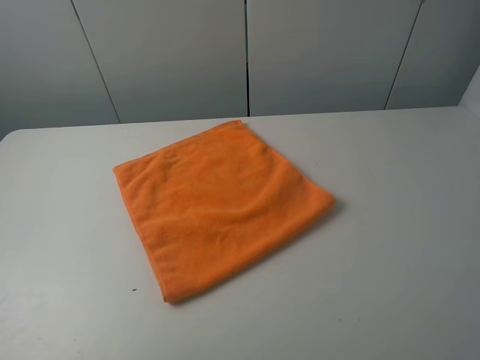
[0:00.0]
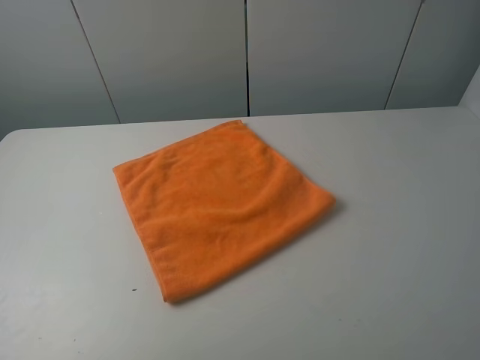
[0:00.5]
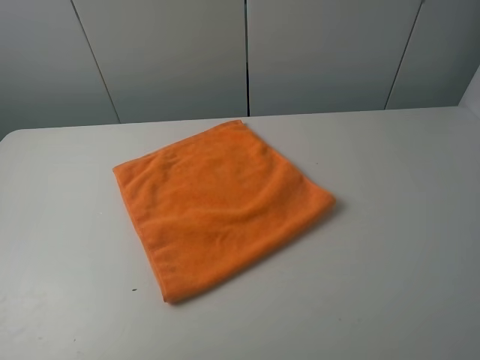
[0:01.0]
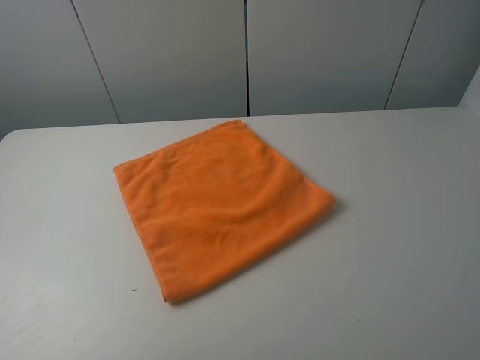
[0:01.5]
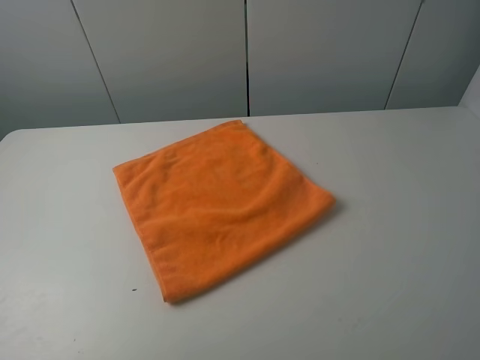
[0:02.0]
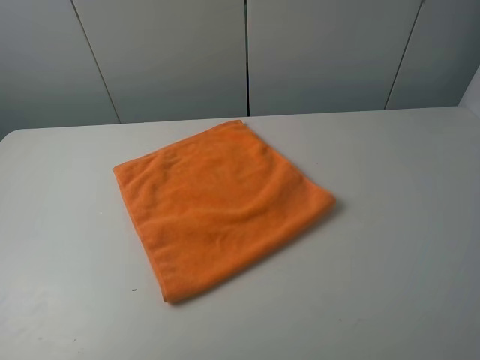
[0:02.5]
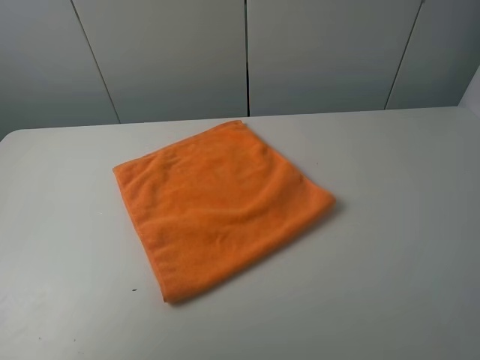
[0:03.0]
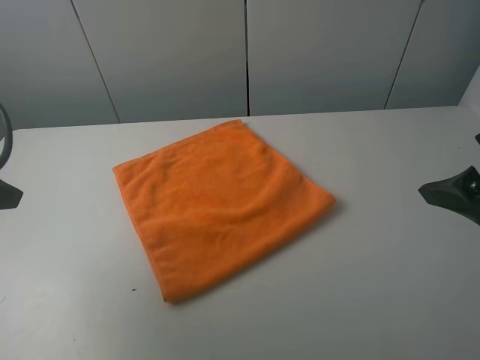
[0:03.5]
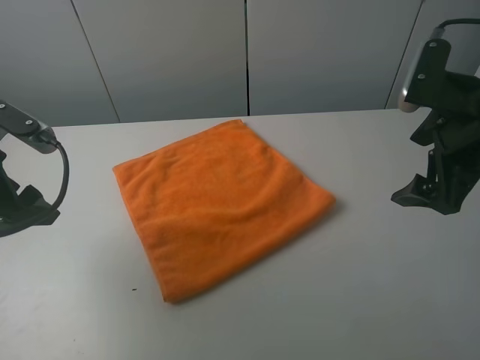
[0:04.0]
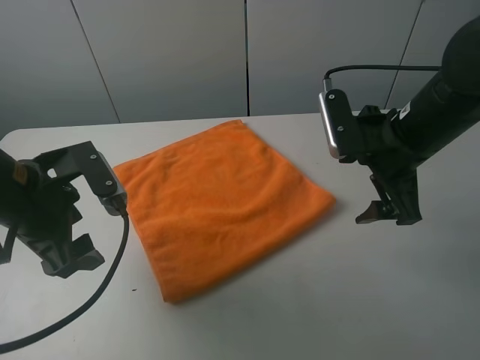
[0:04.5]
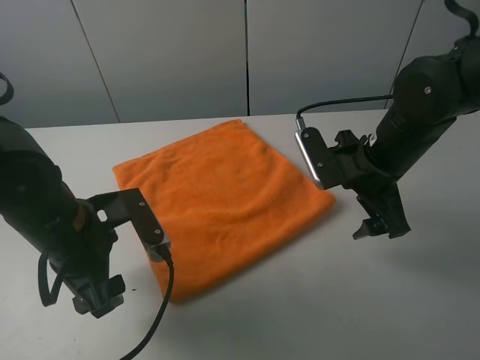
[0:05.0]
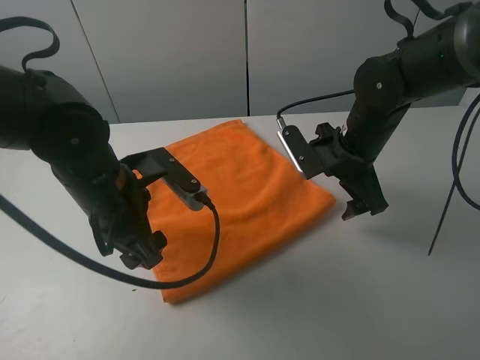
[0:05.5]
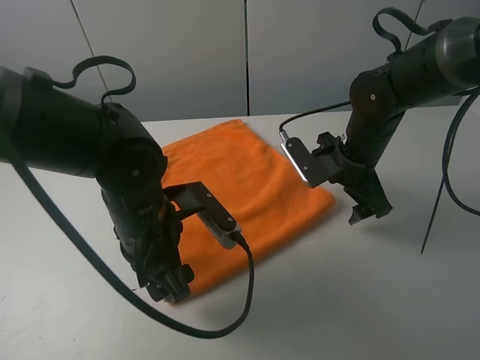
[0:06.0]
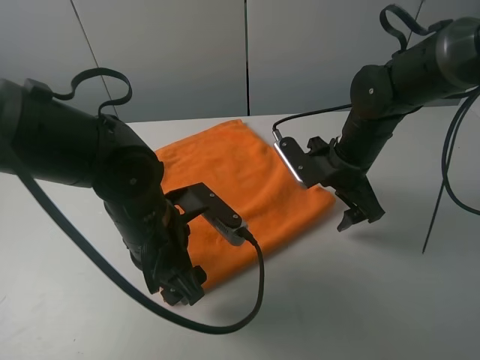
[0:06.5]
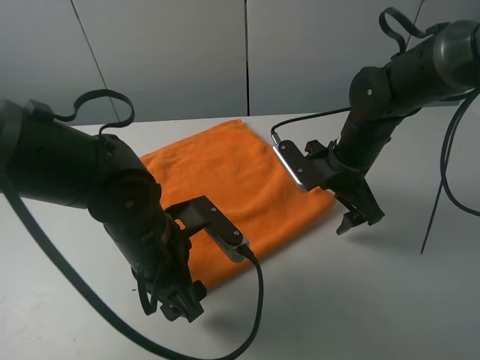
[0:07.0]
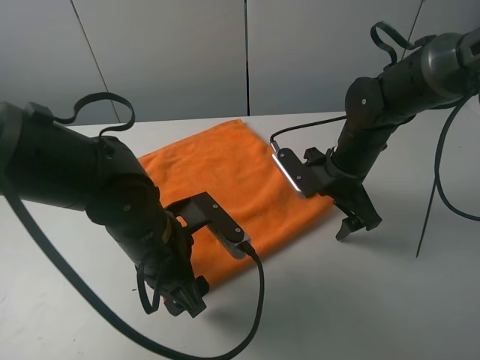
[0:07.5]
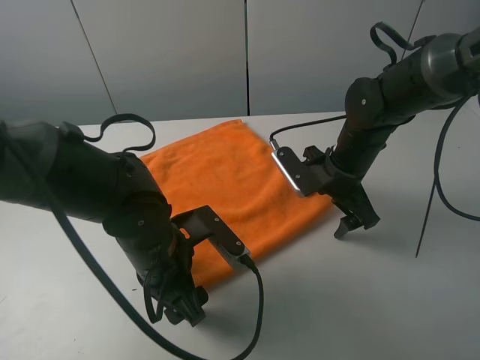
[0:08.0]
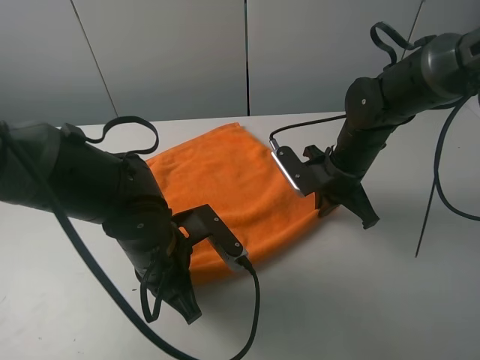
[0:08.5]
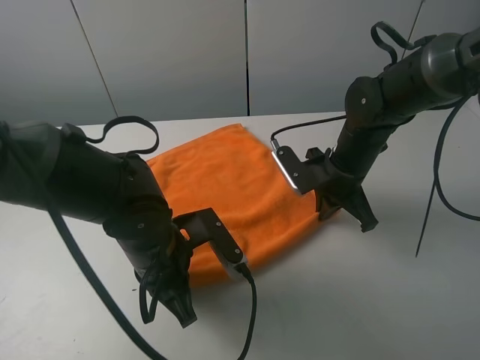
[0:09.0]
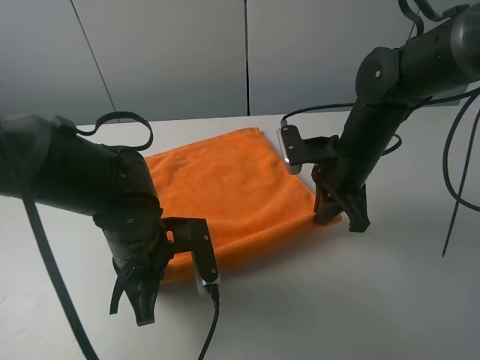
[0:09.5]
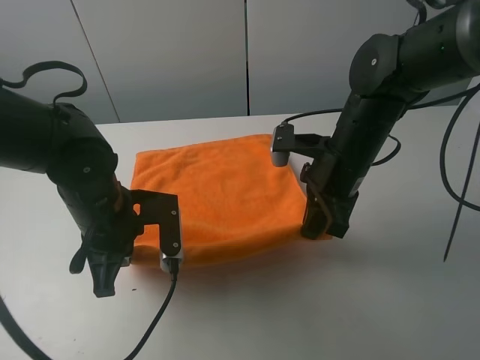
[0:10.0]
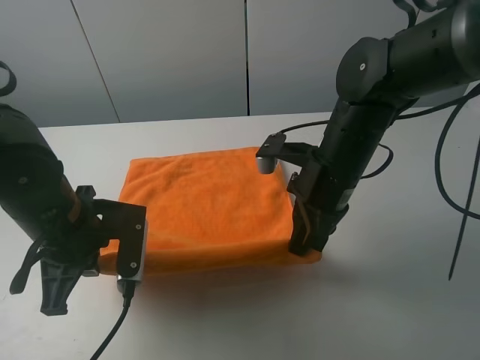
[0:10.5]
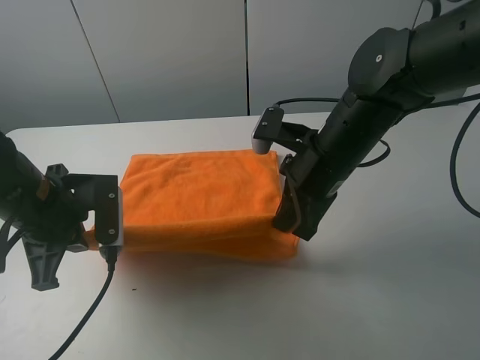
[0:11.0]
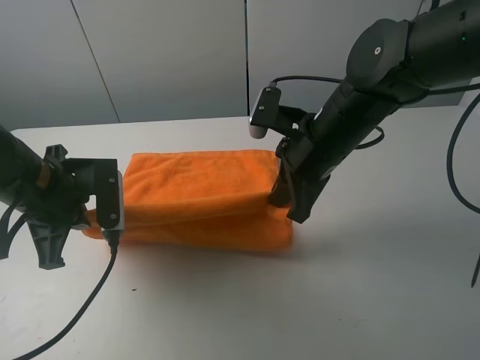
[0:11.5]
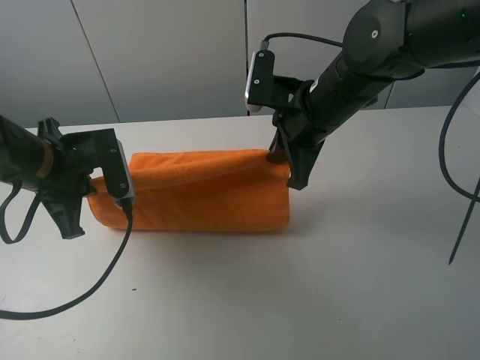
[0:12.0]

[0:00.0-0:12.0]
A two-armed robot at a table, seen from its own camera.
Task of the whole recording: fold the towels on the table.
Step, 0:00.0 to 0:08.5: Grasp the orange towel with the left gripper.
0:00.0 to 0:02.0: The two grippers keep their place.
0:02.0 to 0:04.0: The two grippers go approximately 25 cm forward.
0:04.0 to 0:06.0: The right gripper shifts about 15 cm downward, forward and to the left. Meanwhile the left gripper shifts approximately 20 cm to the right and downward.
0:08.0 to 0:10.0: The right gripper shifts about 5 cm upward, and closes up; the left gripper moves to the left, roughly 5 cm, and closes its fingers.
0:10.0 to 0:12.0: The left gripper moves to the left and upward, some 10 cm. The right gripper ends up roughly 5 cm from where it was.

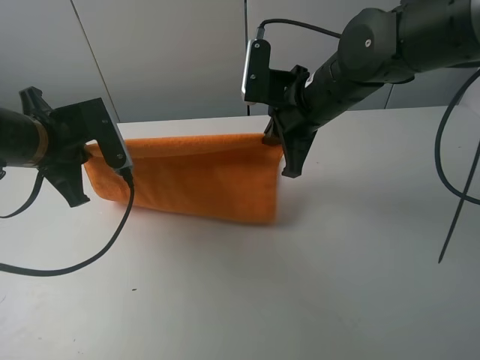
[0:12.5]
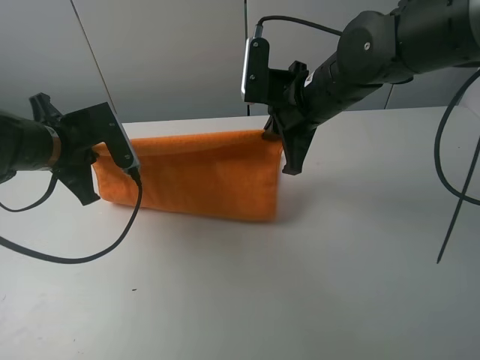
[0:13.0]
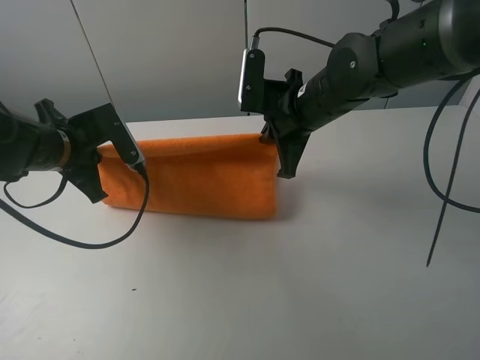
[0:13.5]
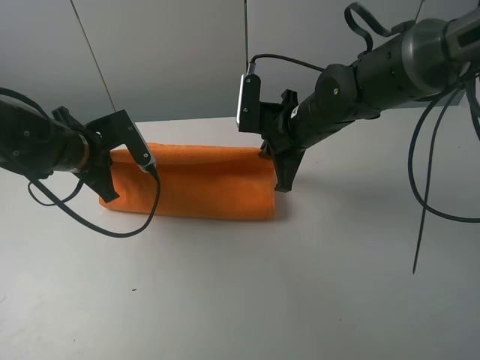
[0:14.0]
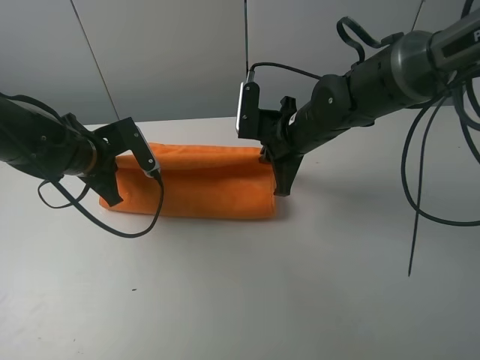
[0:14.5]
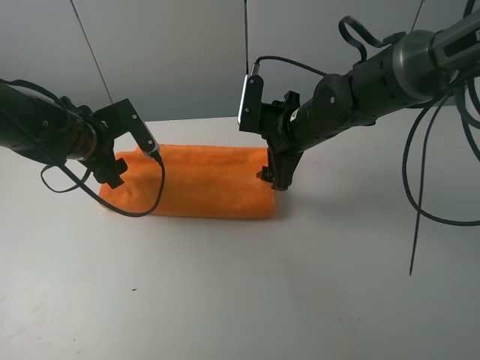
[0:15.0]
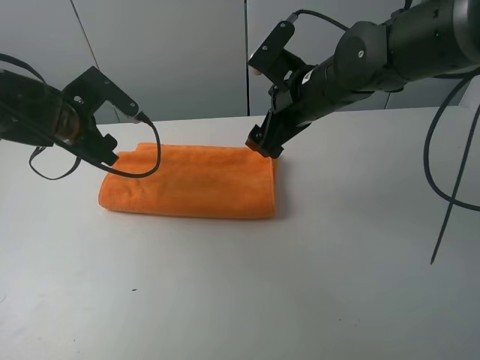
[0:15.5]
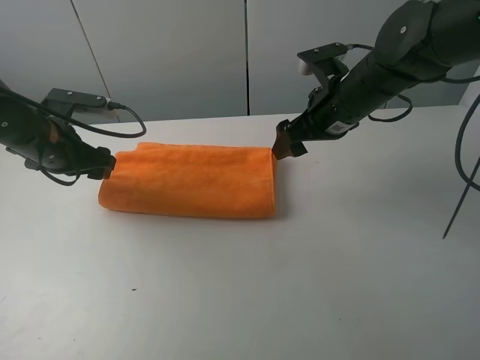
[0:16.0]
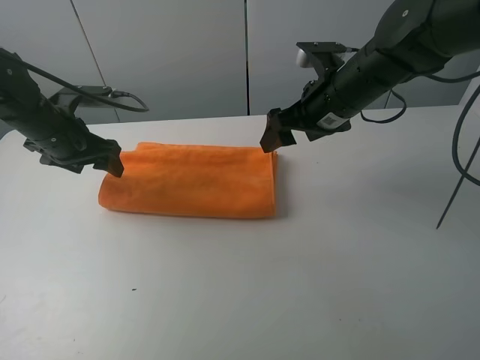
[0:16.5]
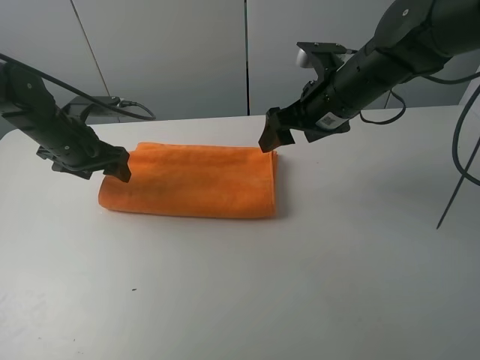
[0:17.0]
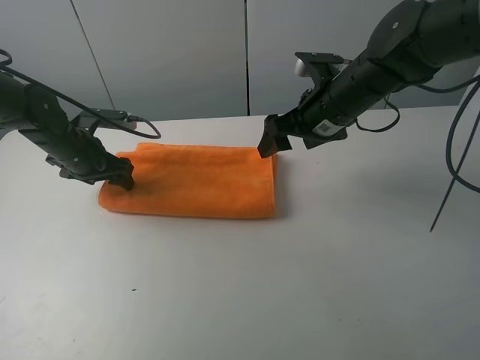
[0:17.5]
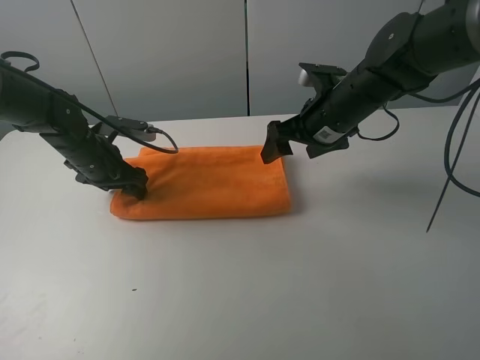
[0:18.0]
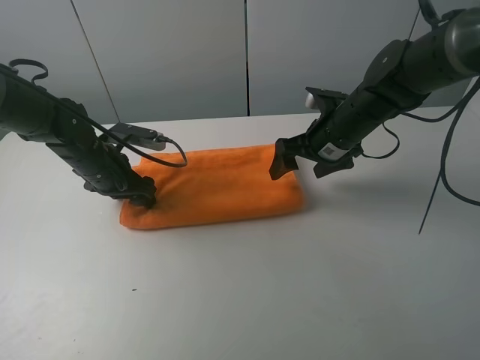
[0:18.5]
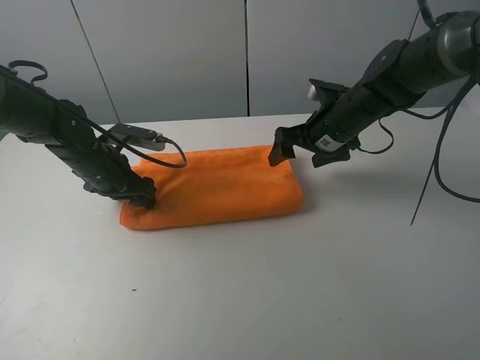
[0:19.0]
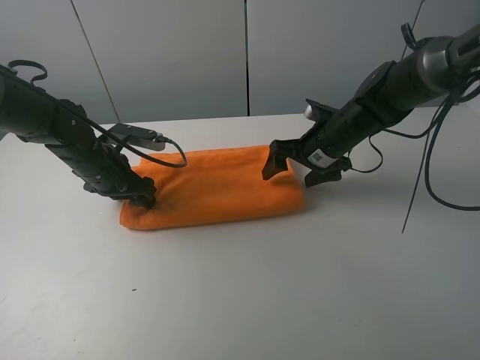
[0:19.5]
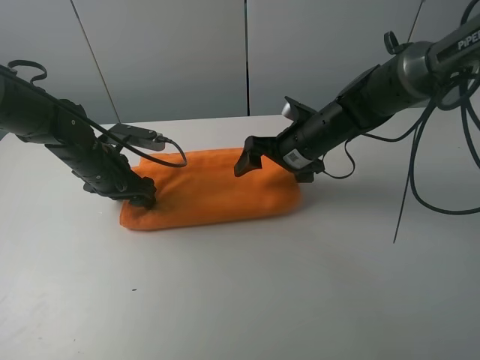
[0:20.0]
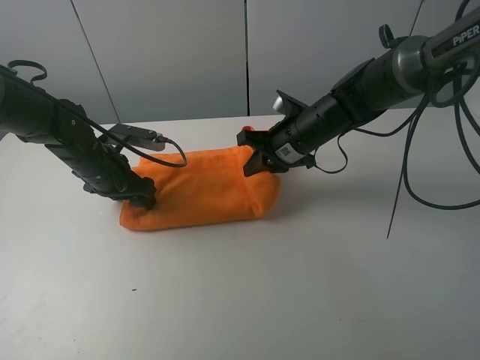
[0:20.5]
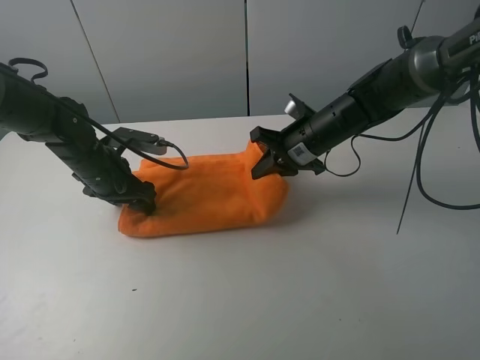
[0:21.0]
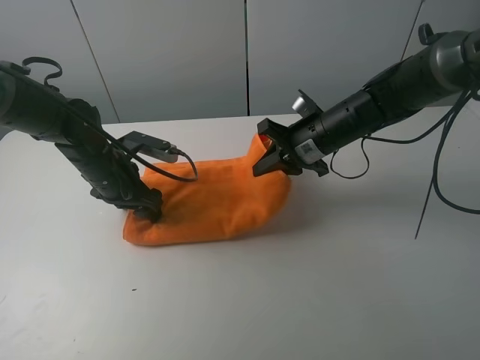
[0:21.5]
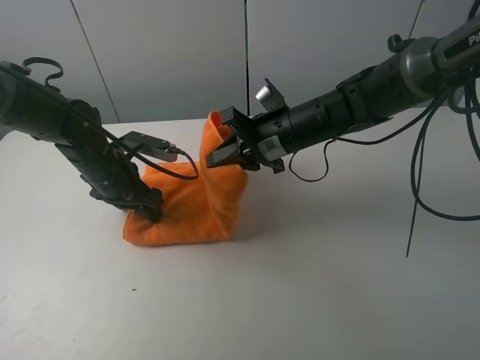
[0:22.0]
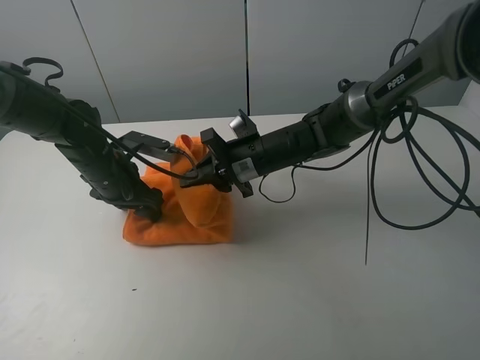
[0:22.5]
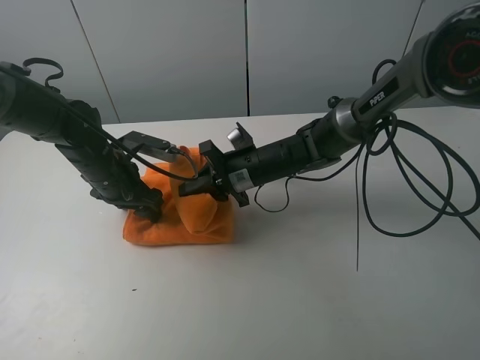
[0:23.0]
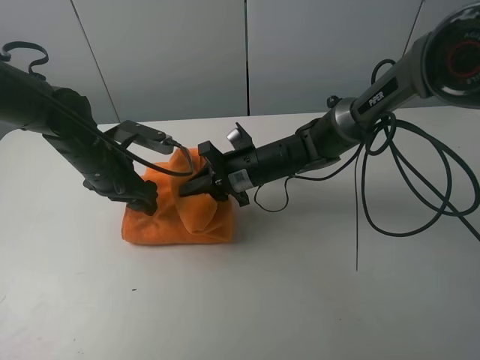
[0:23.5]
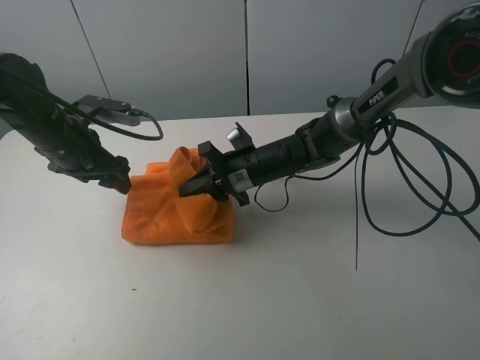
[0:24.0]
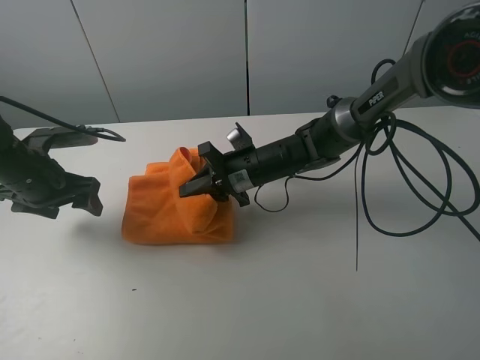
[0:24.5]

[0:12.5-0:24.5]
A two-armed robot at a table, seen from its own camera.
Task of the whole recording: fold the towels on the table.
Step, 0:12.5 to 0:15.5: Fold the orange towel upwards with the right gripper.
Step, 0:16.0 to 0:18.0: Press on the orange towel with the left gripper.
0:12.5 to 0:14.5: The right gripper shifts about 5 cm downward. The left gripper heads downward and forward, covering some 10 cm.
0:14.5 to 0:16.5: The right gripper goes roughly 5 cm upward, and opens up, while the left gripper changes place by about 5 cm, and opens its fingers.
0:16.5 to 0:18.5: The two grippers go some 5 cm downward.
0:18.5 to 0:20.5: The right gripper heads to the left, covering some 5 cm, and closes.
0:20.5 to 0:22.5: The right gripper is displaced to the left by roughly 5 cm.
0:22.5 to 0:24.5: The left gripper is displaced to the left by about 10 cm.

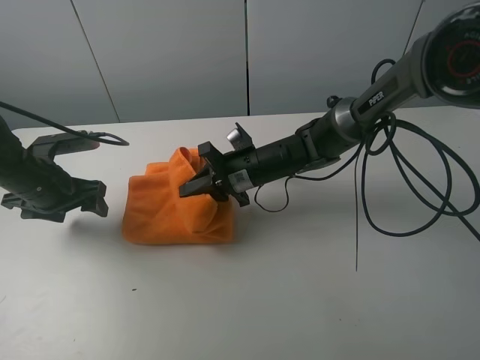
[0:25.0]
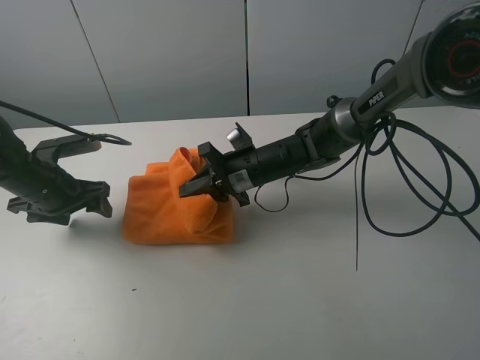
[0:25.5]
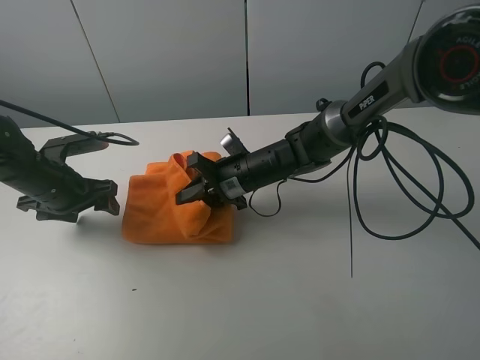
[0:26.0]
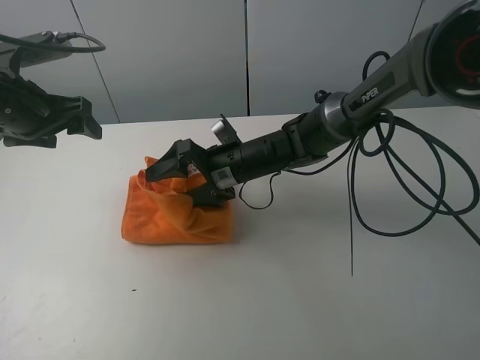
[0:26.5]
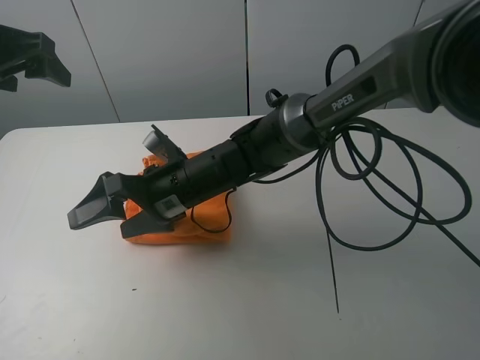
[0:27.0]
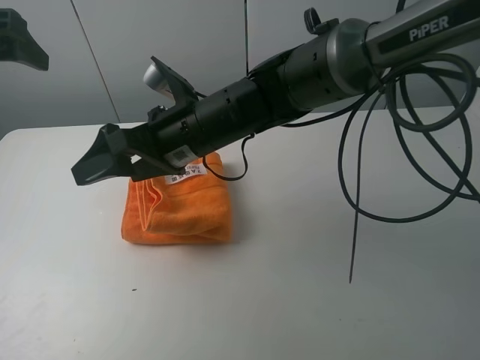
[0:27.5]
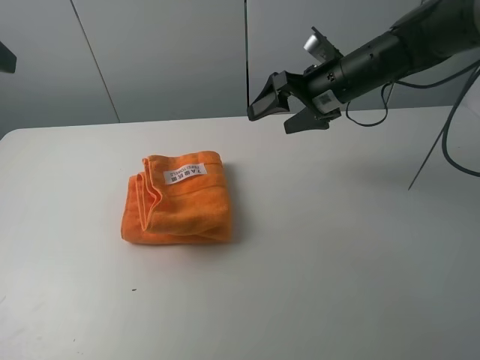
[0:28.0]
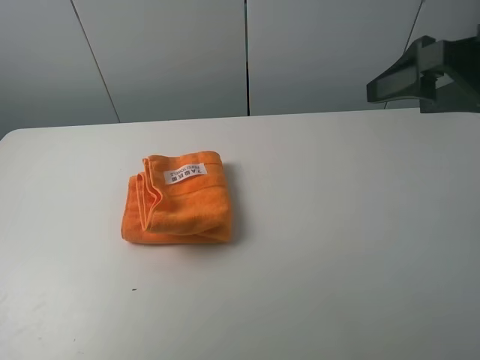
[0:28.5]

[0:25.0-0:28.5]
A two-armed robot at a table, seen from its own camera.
Task of the whole recording: fold the towels on the table.
Step, 0:25.0 to 0:27.0: Fold the orange towel from right to left with right gripper.
0:25.0 to 0:27.0: The right gripper heads to the left, backward and upward, covering about 15 cm, and opens up, while the left gripper moves upward, some 20 cm.
0:27.0 to 0:28.5: The right gripper shifts approximately 35 cm to the right and upward. The left gripper shifts roughly 20 cm backward.
